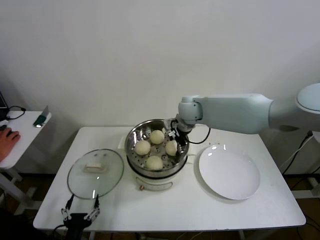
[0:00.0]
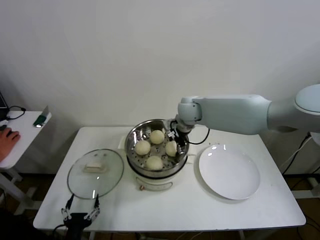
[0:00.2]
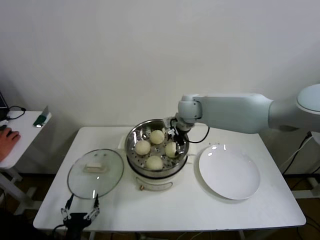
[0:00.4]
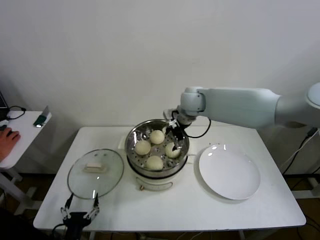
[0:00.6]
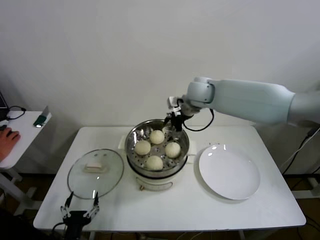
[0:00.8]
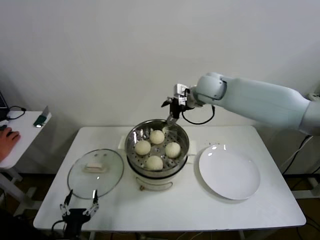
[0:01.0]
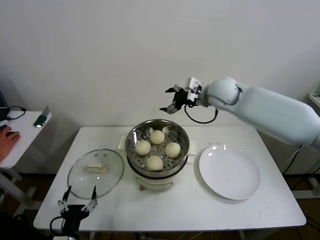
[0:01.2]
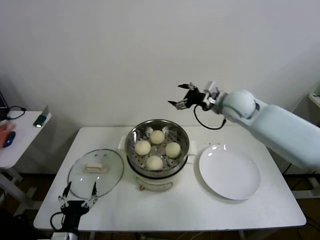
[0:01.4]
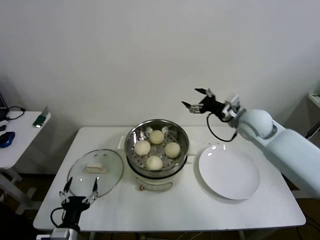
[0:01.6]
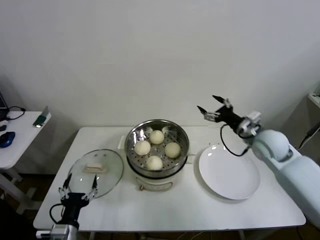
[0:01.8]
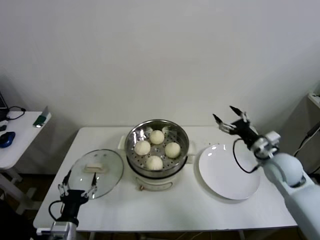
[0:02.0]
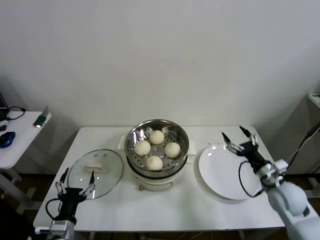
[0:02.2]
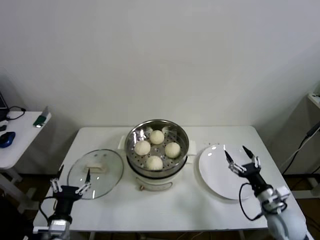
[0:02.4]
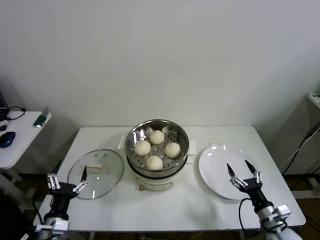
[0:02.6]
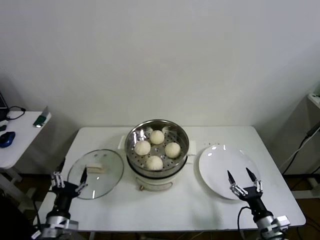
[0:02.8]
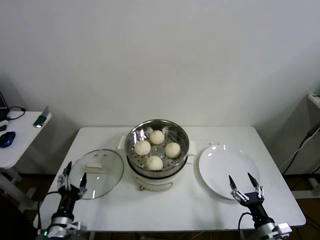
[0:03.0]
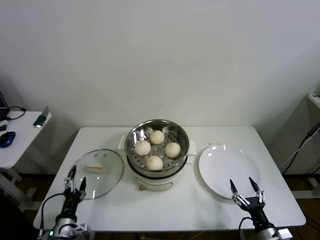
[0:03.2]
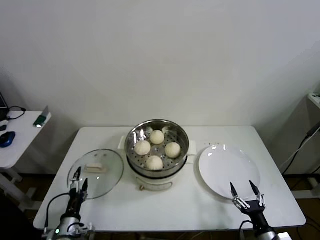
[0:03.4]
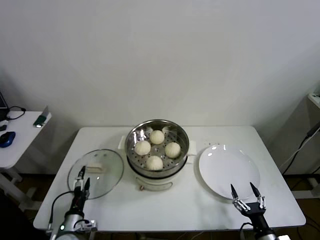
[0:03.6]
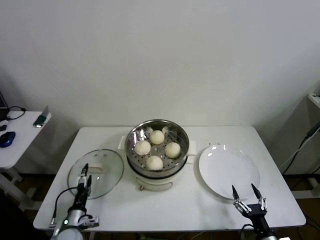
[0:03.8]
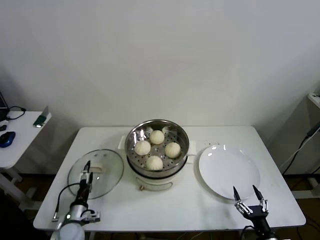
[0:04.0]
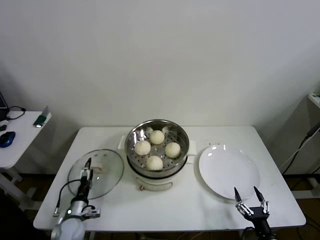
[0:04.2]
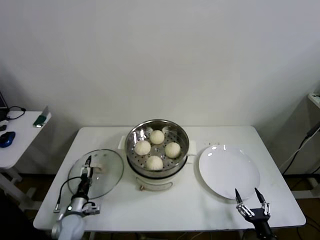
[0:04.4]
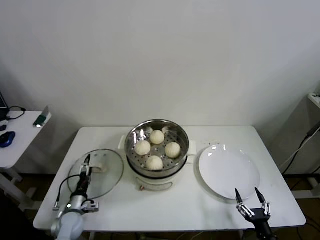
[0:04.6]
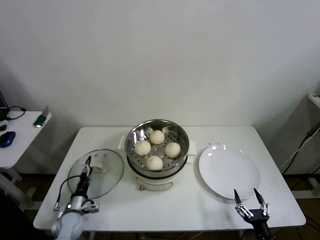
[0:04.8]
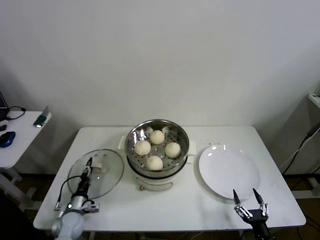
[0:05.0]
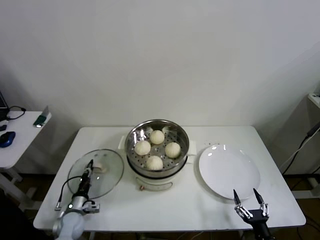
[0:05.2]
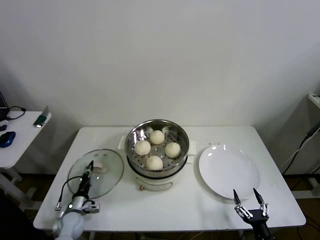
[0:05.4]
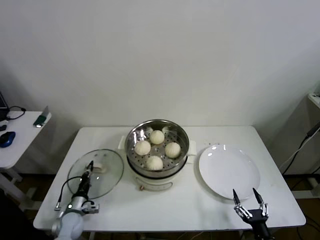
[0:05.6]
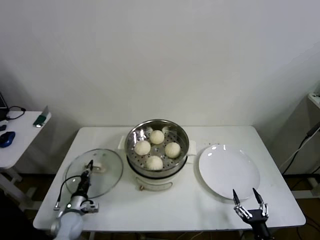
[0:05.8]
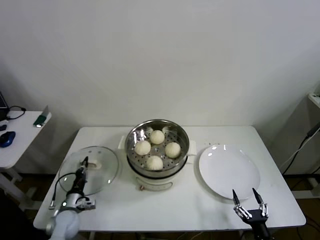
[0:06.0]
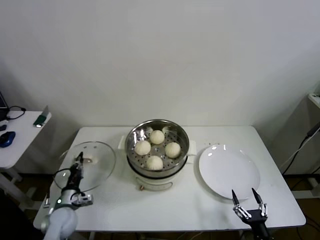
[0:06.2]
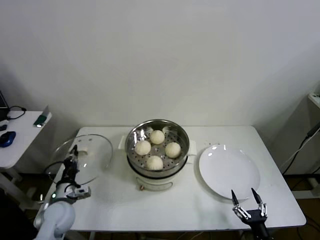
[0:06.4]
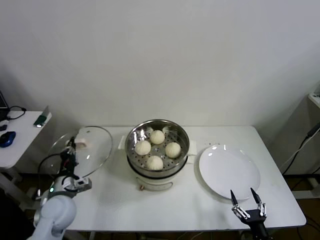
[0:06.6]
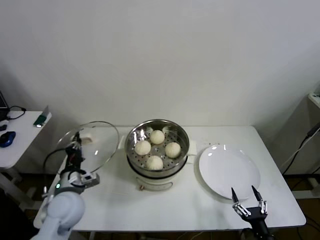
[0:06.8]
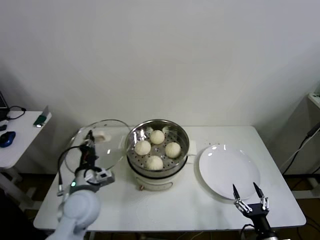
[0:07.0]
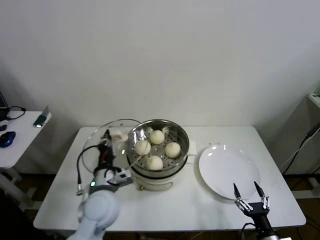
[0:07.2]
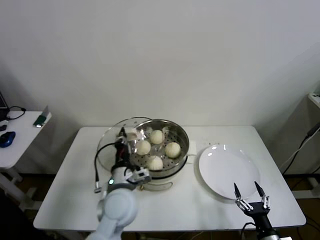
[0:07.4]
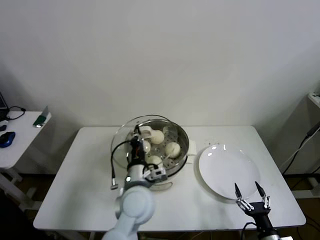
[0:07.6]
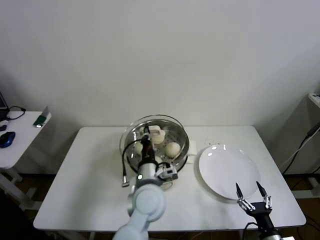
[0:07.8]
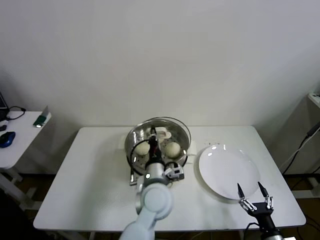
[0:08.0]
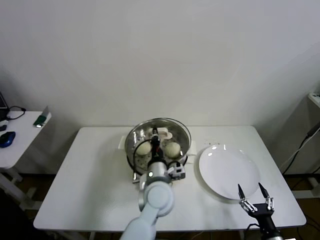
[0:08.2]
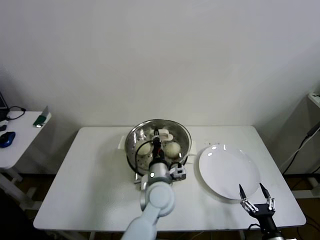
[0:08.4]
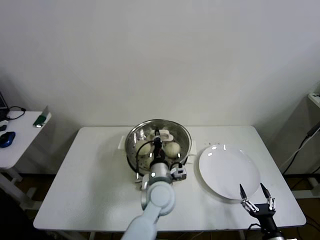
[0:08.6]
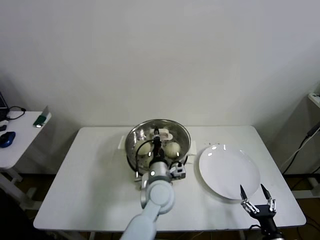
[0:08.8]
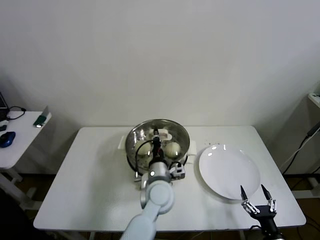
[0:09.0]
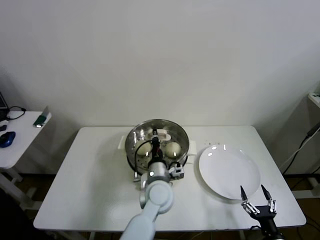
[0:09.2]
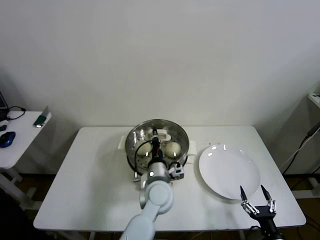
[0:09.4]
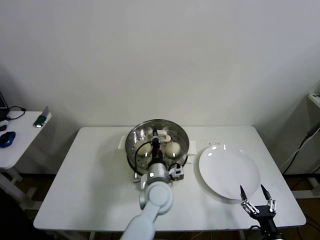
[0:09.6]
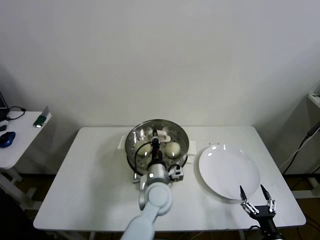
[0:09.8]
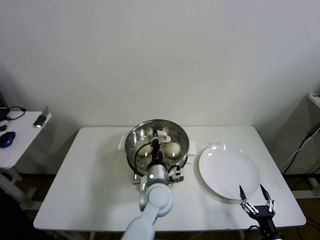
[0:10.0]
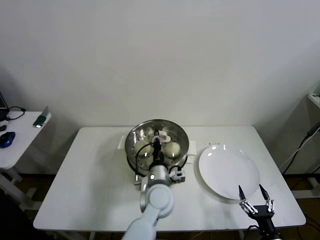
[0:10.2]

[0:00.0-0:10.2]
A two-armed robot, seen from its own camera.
Step, 0:00.6 to 0:05.4: Grasp the pot lid with left gripper.
0:00.0 to 0:01.4: The right gripper goes roughly 15 cm to the right, and opens.
0:01.4 to 0:03.0: The left gripper shifts by about 5 cm. Meanwhile the right gripper heads backward and downward, covering roughly 50 cm.
0:03.0 to 0:04.4: The right gripper ends up some 5 cm from where it was; the left gripper travels downward and forward by some 15 cm.
0:04.4 to 0:05.8: The left gripper closes up.
0:05.8 to 0:07.2: The left gripper is displaced upward and to the right by approximately 30 cm.
0:07.2 to 0:08.8: The left gripper travels to the right by about 20 cm.
0:08.8 to 0:10.2: The grippers move only a little.

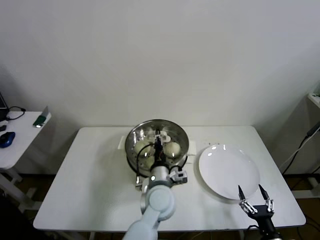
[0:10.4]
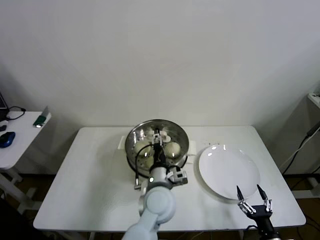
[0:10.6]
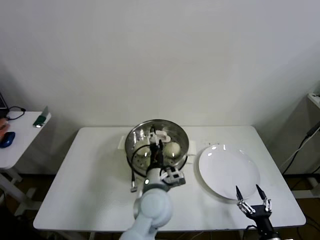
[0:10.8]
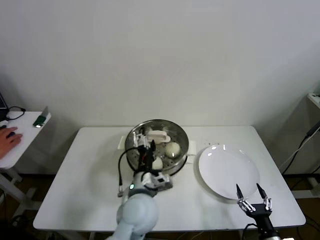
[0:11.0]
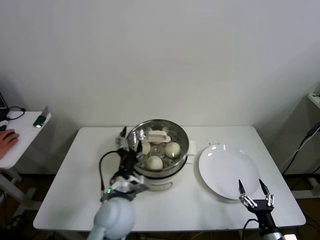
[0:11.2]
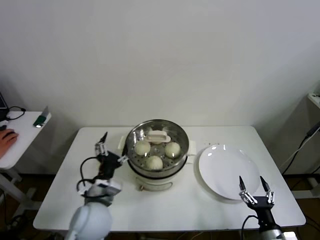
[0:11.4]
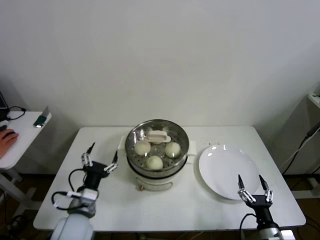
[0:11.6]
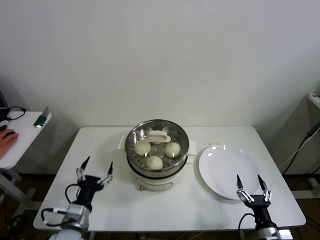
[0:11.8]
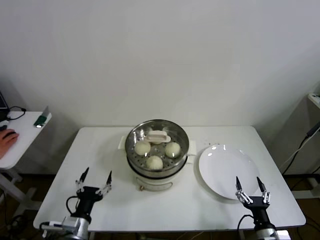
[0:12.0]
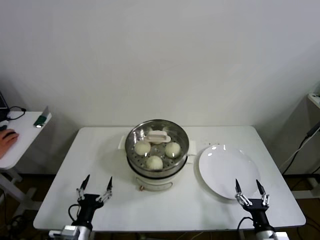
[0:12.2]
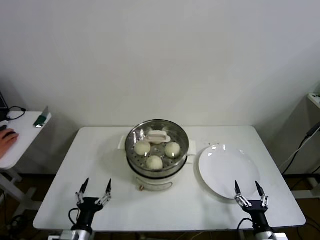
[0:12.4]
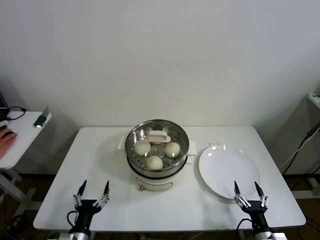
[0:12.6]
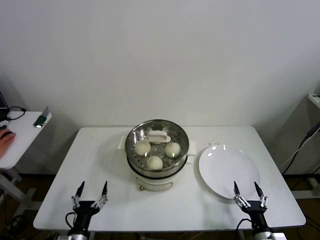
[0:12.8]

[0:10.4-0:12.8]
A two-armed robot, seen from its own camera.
0:10.4 to 0:11.6: The left gripper goes some 20 cm to the left, and opens.
0:11.6 to 0:12.8: The left gripper goes approximately 15 cm downward, backward and to the left.

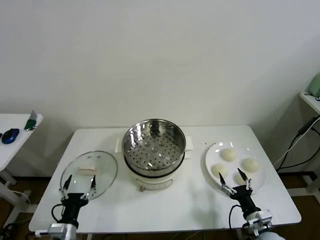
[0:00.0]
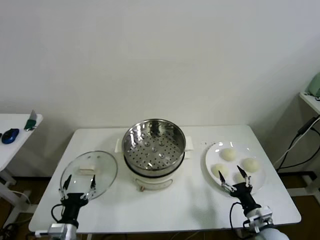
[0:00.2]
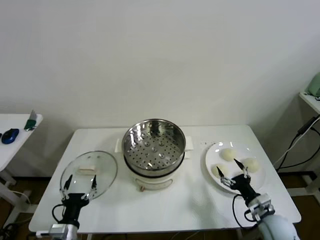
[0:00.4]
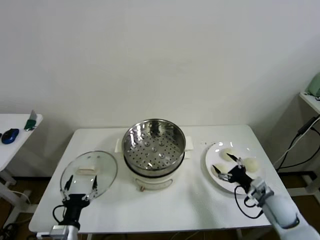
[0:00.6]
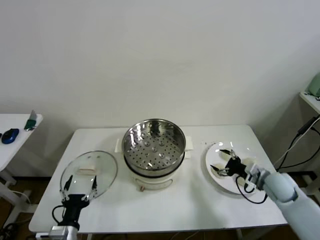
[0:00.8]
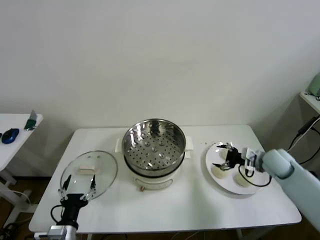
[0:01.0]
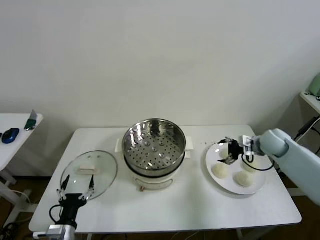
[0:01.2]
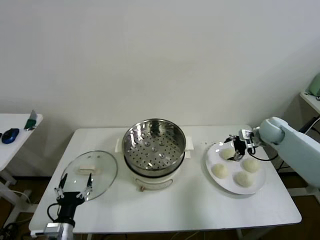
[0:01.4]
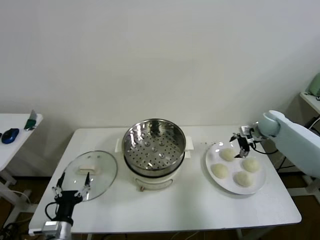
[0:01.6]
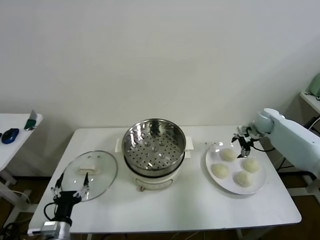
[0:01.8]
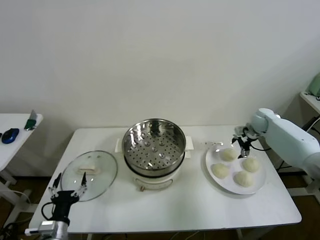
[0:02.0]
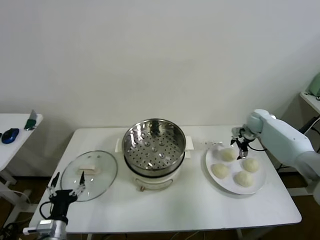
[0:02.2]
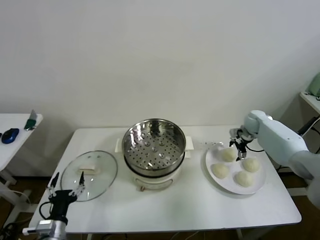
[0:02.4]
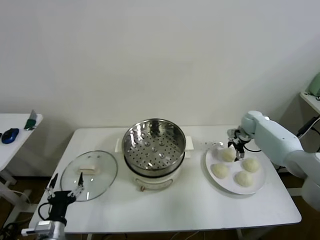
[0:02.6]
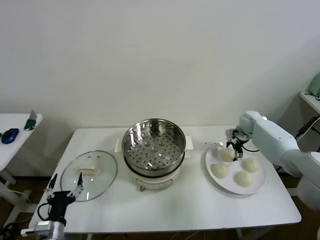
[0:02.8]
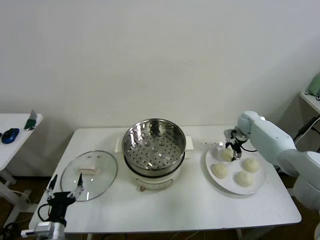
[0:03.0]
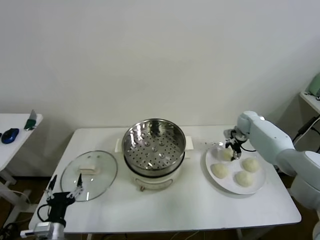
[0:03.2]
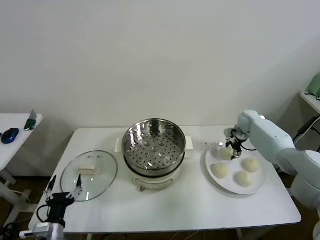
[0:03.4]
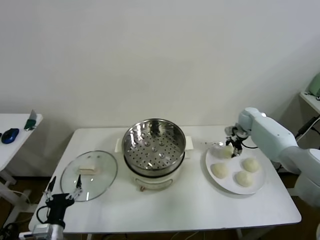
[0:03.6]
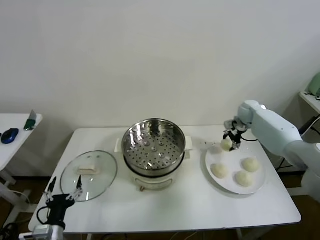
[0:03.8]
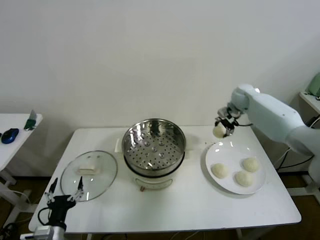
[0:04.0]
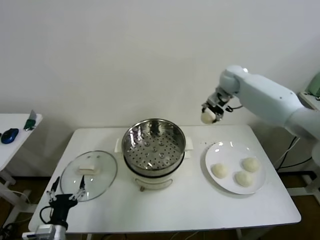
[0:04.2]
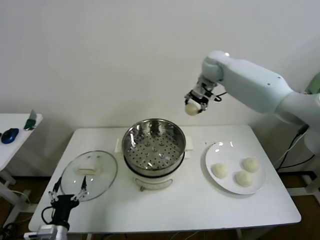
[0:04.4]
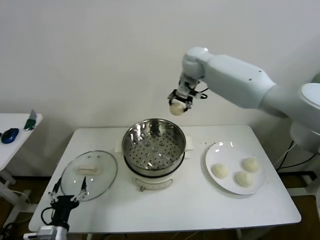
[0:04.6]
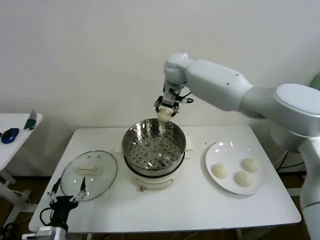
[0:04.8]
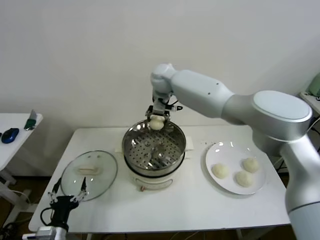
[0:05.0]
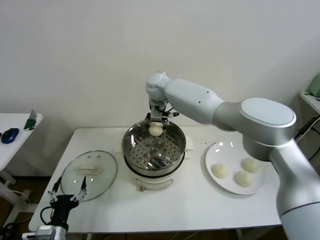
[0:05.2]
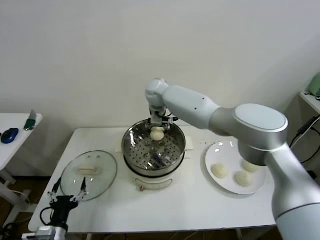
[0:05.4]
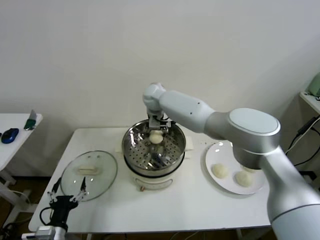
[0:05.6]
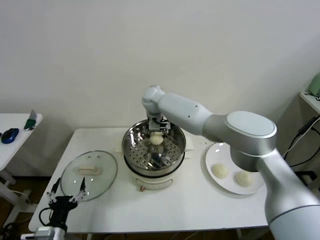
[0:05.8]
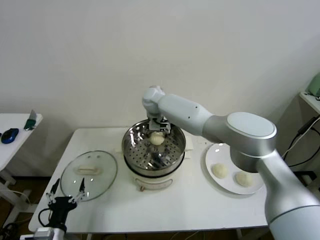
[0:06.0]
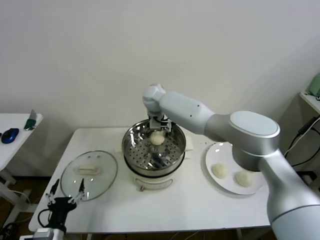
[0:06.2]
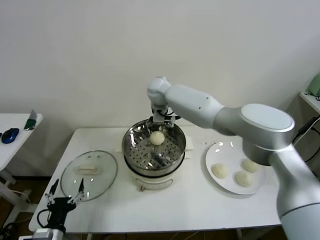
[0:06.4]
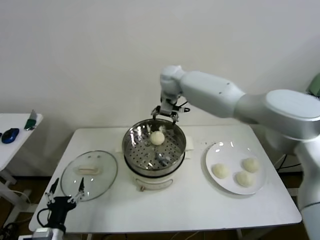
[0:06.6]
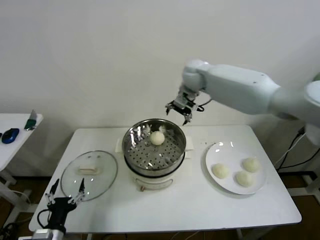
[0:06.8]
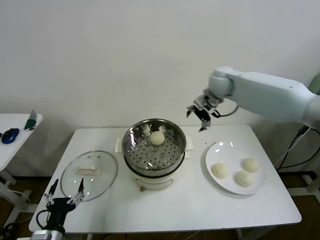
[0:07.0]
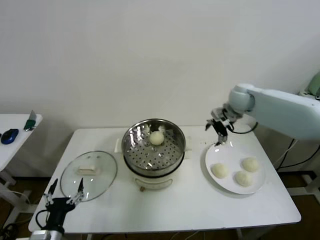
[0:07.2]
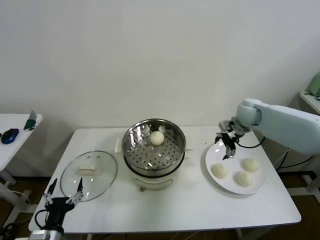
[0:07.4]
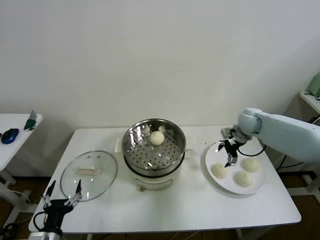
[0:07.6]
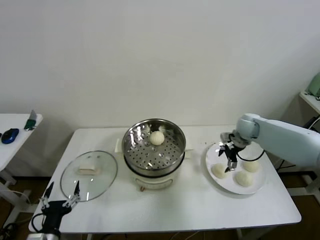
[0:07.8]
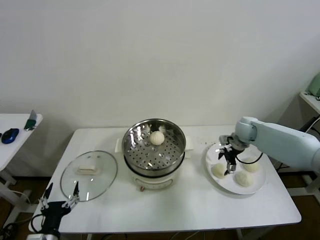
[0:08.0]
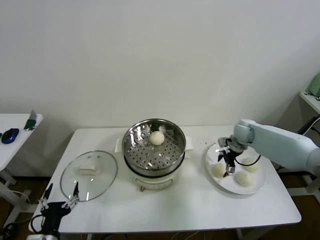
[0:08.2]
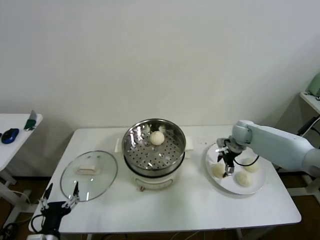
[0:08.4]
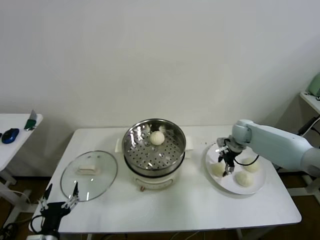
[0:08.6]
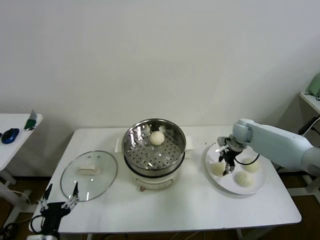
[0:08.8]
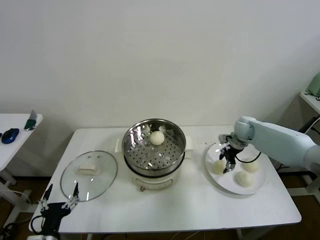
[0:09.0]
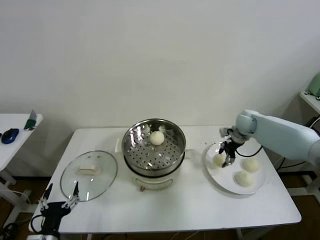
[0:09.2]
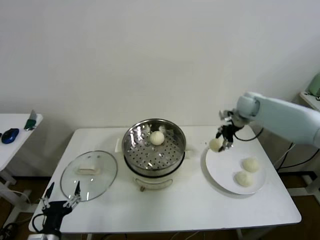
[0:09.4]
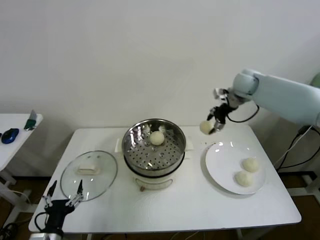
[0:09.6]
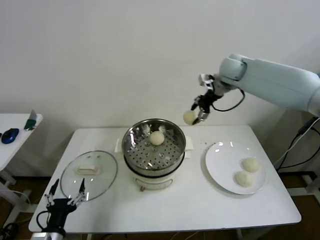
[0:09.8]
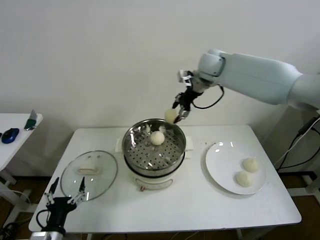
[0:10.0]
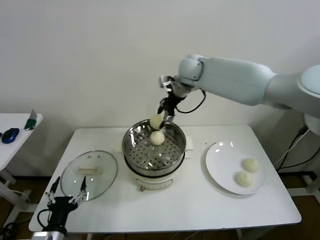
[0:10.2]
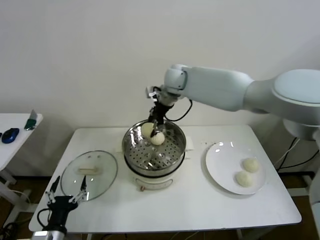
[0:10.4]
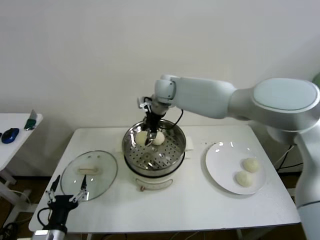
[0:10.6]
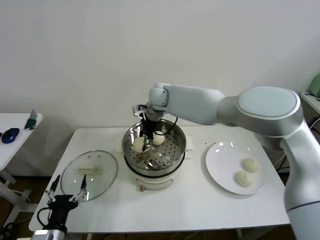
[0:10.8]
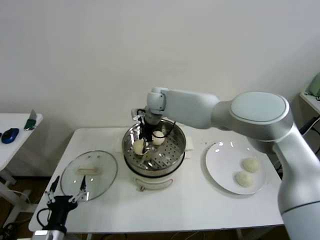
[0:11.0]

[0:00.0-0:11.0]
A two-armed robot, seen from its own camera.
Step, 0:00.0 to 0:03.2: Grasp the baozi in the plate with right gripper.
Step, 0:03.4 to 0:06.0: Place the baozi on the steamer with right gripper.
Step, 0:06.2 to 0:08.6: Grasp the baozi in the plate with right gripper.
0:01.6 to 0:03.2: The right gripper is displaced forward and downward by about 10 cm, and closes.
0:03.2 to 0:04.8: The right gripper goes some 40 cm to the left and upward.
0:04.8 to 0:06.2: The right gripper shifts approximately 15 cm downward and to the left, and opens up.
0:06.2 to 0:07.8: The right gripper shifts some 35 cm to the right.
0:07.8 to 0:09.4: The right gripper goes approximately 5 cm upward, and closes up.
0:09.4 to 0:11.0: The right gripper heads to the left, covering some 35 cm.
